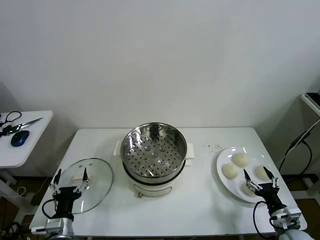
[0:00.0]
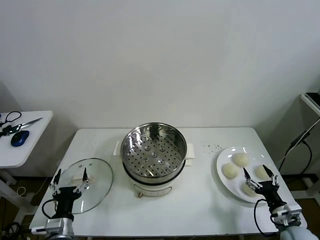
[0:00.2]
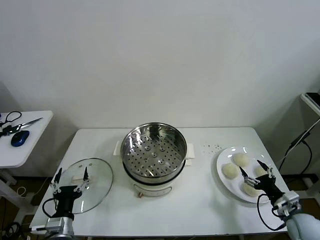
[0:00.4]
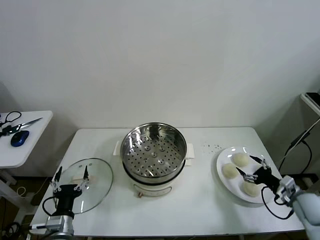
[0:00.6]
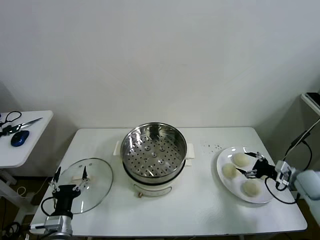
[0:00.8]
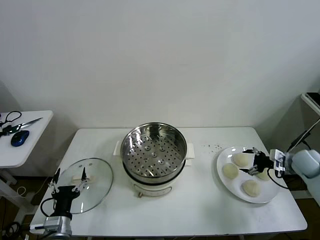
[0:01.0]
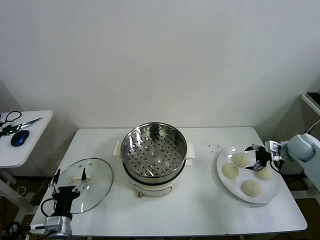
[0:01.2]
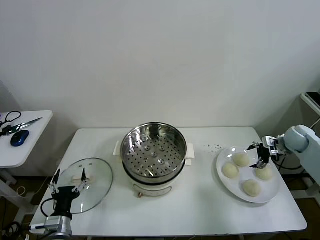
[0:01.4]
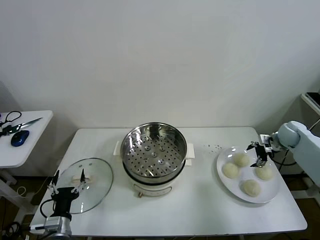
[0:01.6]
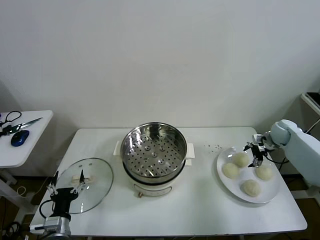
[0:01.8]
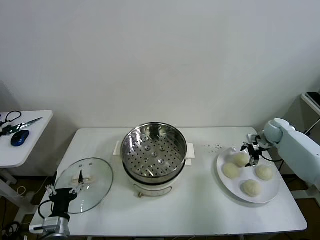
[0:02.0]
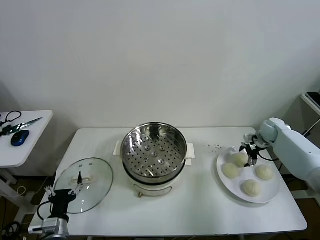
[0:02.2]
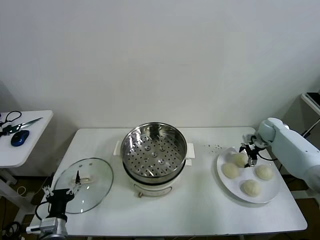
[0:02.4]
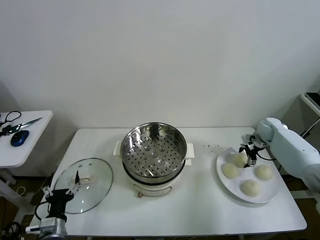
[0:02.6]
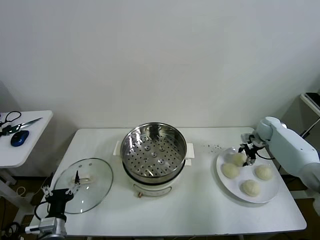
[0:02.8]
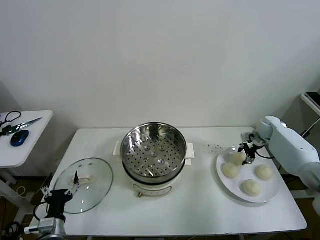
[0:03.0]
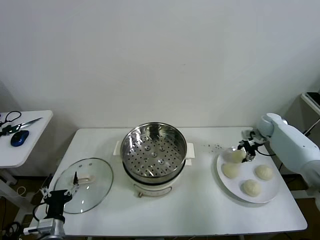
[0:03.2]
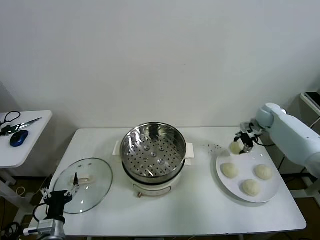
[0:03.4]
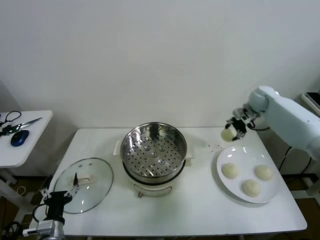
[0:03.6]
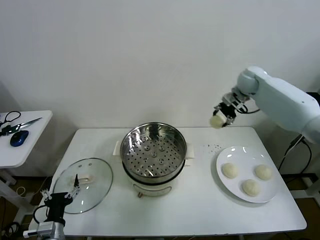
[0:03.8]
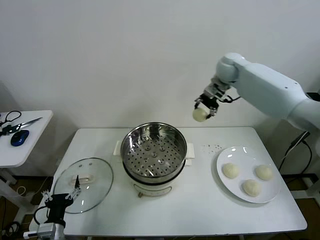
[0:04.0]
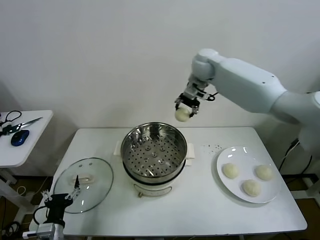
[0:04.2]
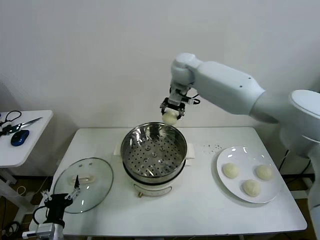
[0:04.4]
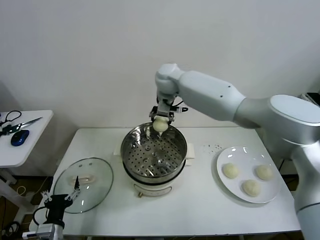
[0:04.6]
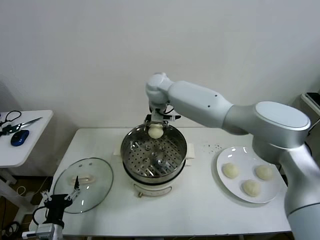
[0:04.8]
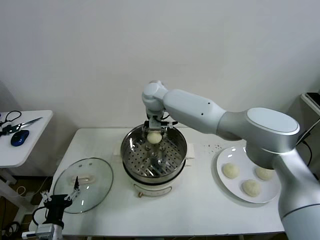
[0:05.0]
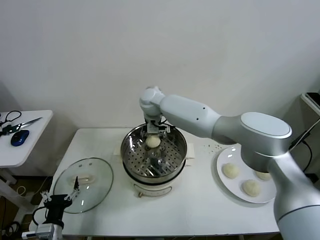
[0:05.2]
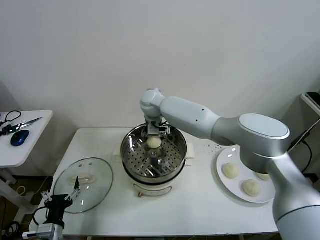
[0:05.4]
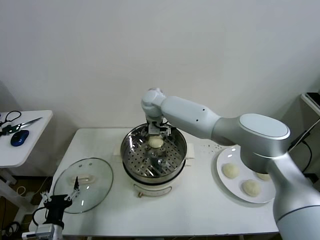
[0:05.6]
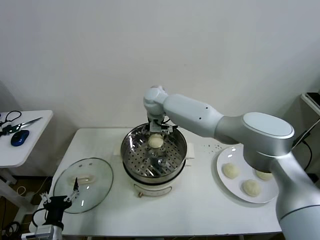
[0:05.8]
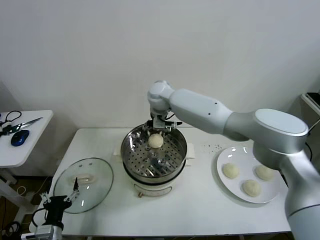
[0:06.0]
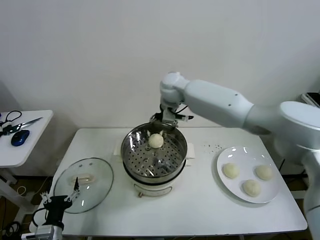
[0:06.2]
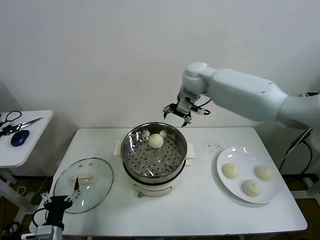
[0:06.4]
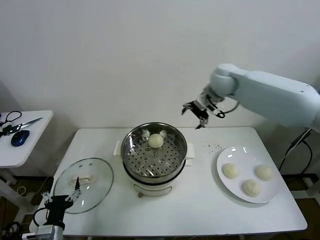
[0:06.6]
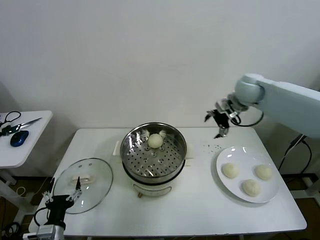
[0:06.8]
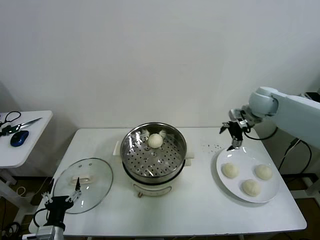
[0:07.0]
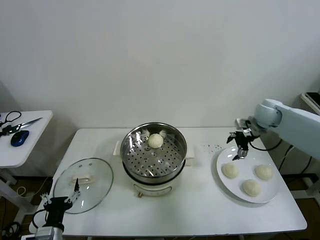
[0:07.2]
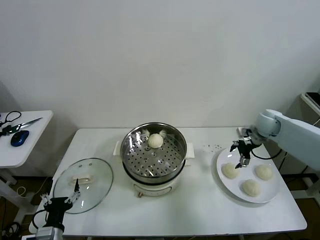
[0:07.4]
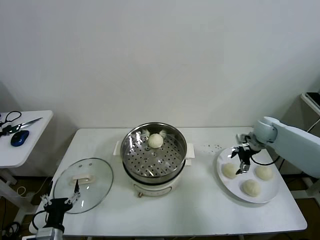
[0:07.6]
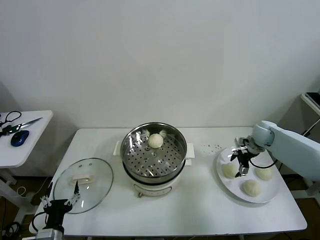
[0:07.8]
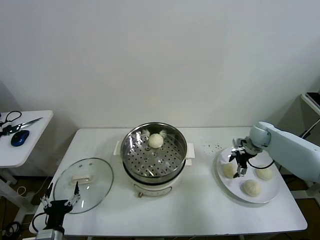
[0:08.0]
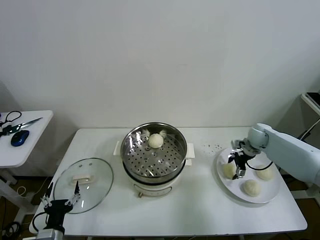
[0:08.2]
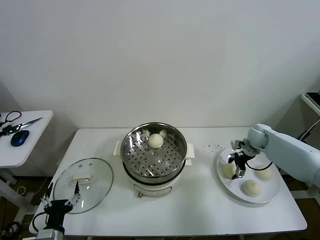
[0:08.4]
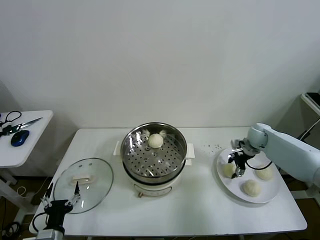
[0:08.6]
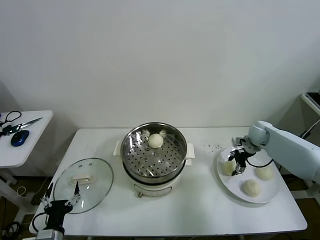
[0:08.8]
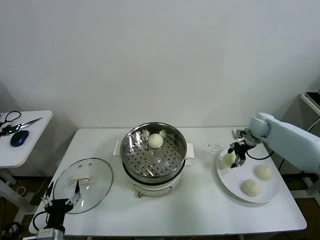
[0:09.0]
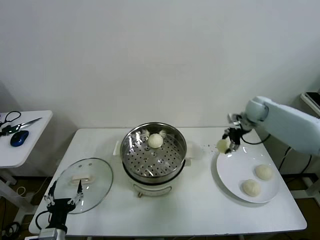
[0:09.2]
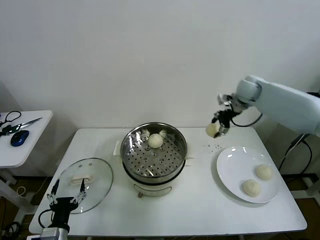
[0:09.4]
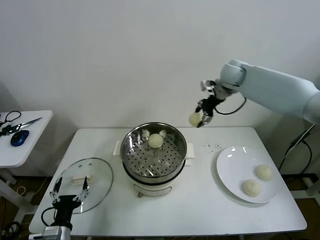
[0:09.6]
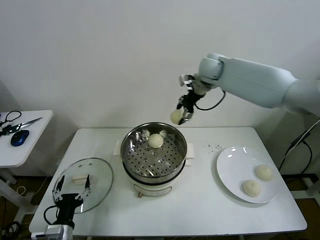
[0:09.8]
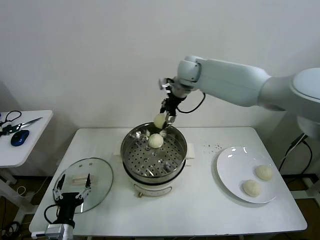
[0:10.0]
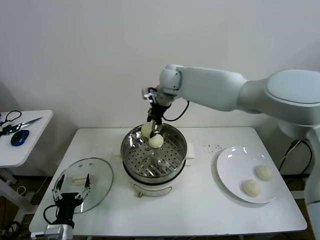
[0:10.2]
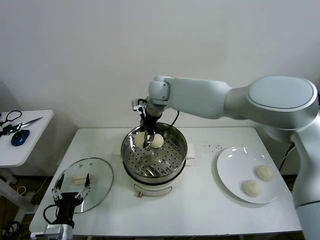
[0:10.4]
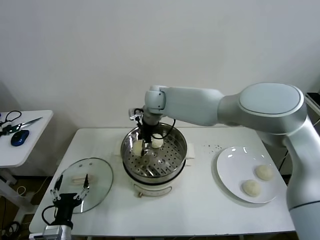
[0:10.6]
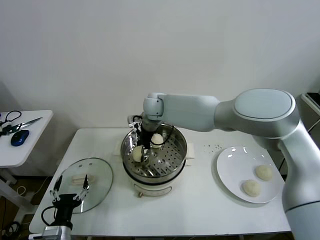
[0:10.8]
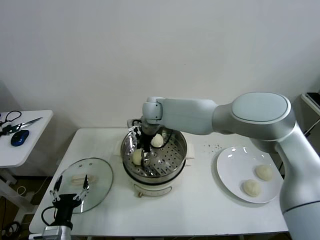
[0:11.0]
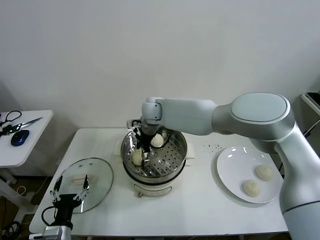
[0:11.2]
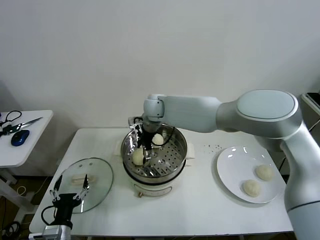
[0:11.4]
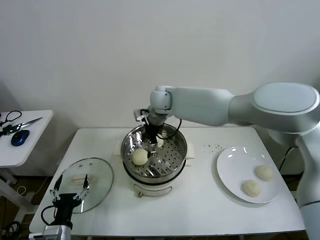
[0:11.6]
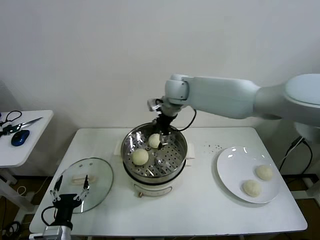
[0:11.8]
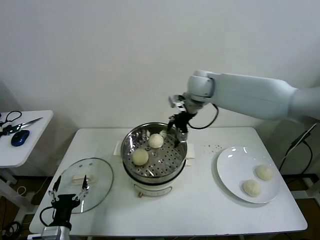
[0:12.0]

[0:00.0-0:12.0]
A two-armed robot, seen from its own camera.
Task of the whole recording: take steamed baozi put them in steamer then cover it.
Step, 0.0 to 2.6 s: Grasp the baozi in the plate with right gripper.
Step, 2.8 to 5.6 s: Place the baozi on the steamer with right gripper.
Step, 6.0 to 8.4 s: Grasp the baozi in the plate with right gripper.
Step, 8.8 to 11.4 s: Place the baozi on the steamer with right gripper.
1.6 to 3.0 s: The right gripper moves forward, some 5 cm, and closes its fingers.
3.0 to 4.4 s: The right gripper moves to the left and upward, some 50 cm.
4.4 to 6.0 s: The right gripper is displaced downward by about 5 cm, and opens its fingers.
6.0 to 7.6 s: The right gripper is displaced to the right and downward by about 40 cm.
7.6 to 9.0 s: The right gripper moves some 5 cm, and closes.
9.0 to 10.4 s: The right gripper is displaced to the left by about 40 cm.
10.4 to 12.0 s: The right gripper is displaced to the right by roughly 15 cm, and opens its fingers.

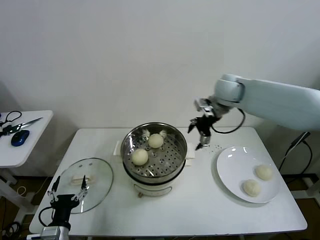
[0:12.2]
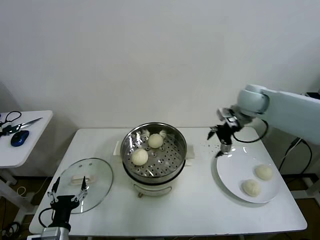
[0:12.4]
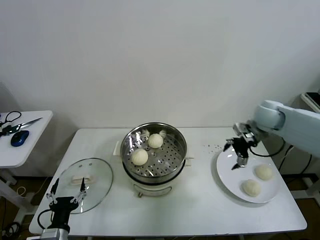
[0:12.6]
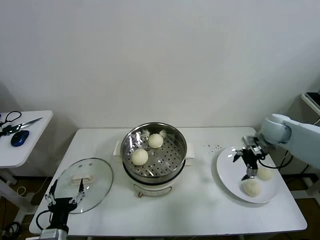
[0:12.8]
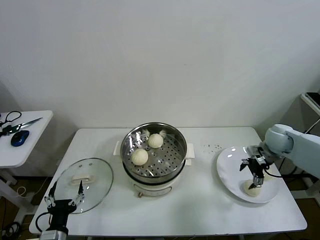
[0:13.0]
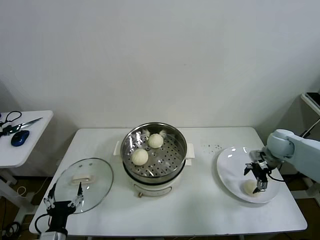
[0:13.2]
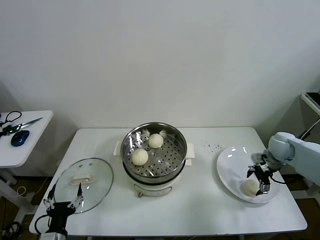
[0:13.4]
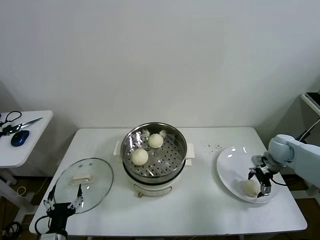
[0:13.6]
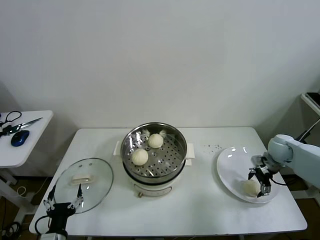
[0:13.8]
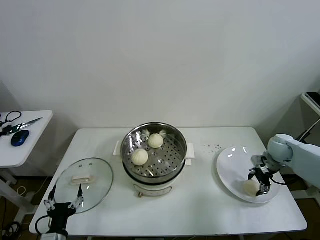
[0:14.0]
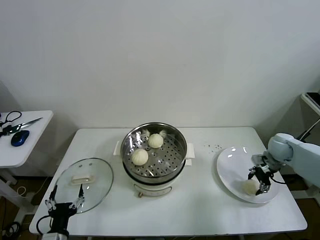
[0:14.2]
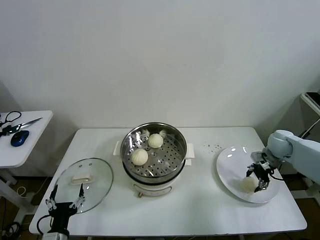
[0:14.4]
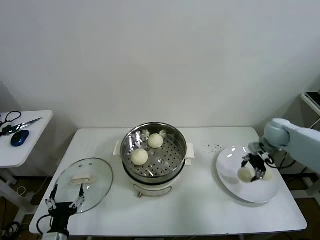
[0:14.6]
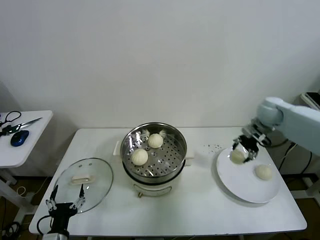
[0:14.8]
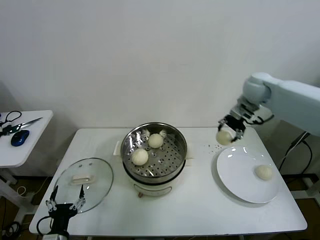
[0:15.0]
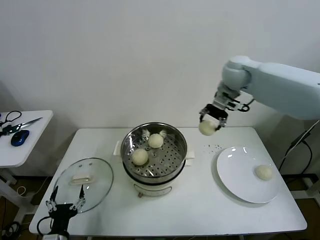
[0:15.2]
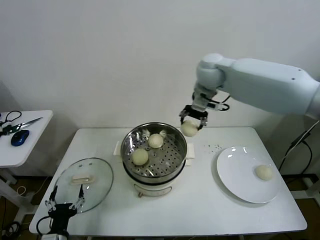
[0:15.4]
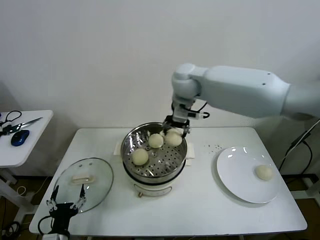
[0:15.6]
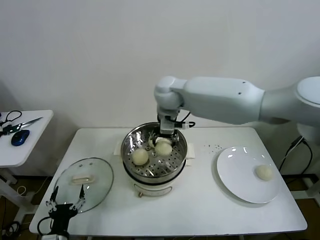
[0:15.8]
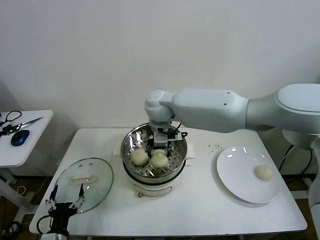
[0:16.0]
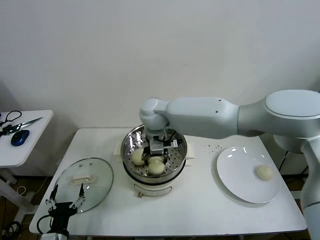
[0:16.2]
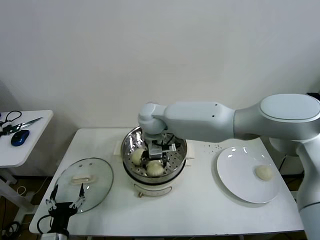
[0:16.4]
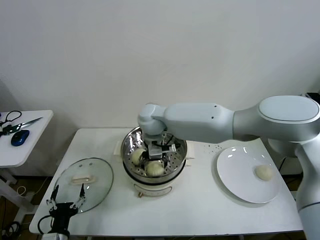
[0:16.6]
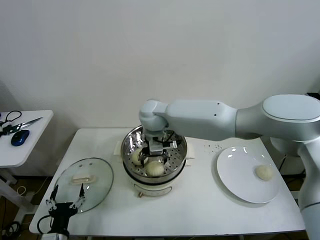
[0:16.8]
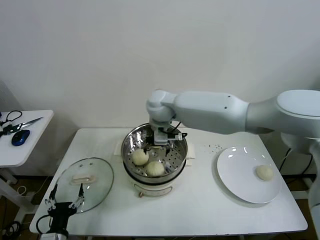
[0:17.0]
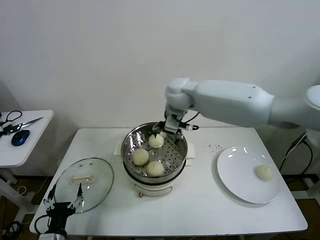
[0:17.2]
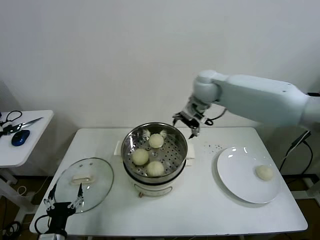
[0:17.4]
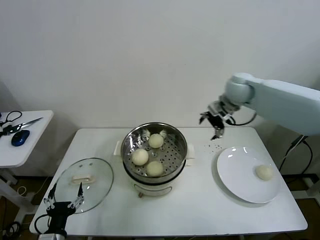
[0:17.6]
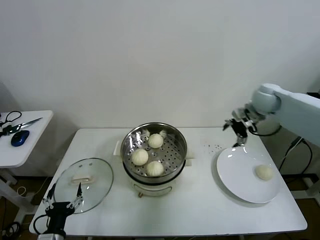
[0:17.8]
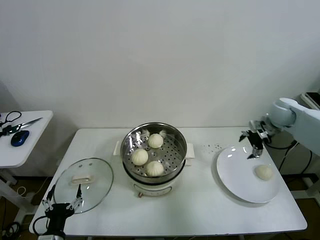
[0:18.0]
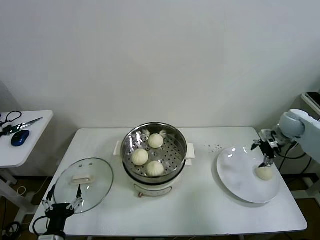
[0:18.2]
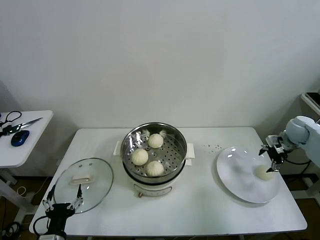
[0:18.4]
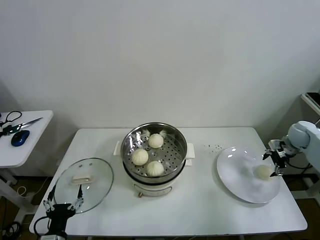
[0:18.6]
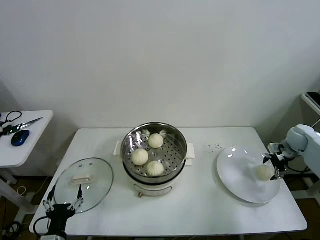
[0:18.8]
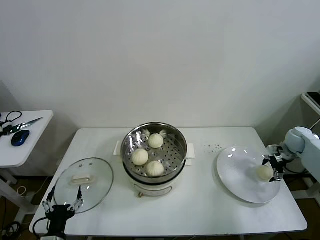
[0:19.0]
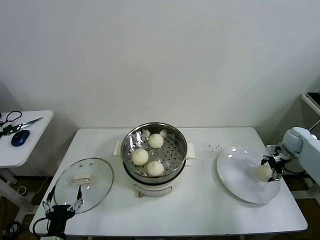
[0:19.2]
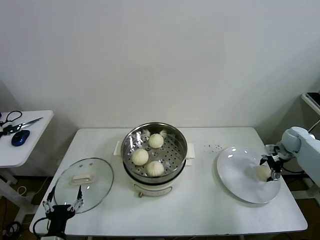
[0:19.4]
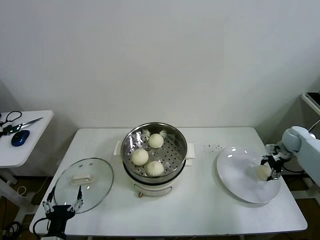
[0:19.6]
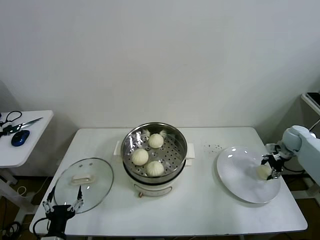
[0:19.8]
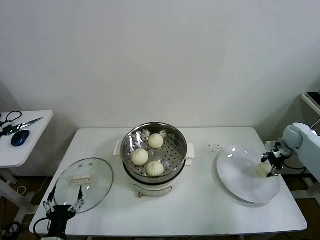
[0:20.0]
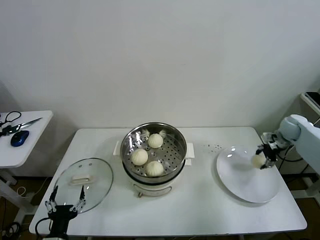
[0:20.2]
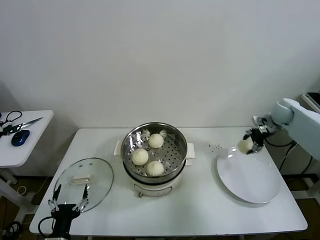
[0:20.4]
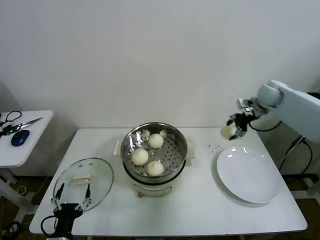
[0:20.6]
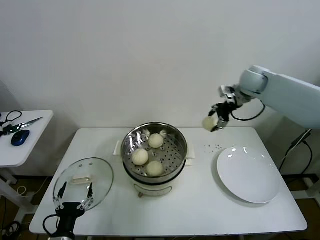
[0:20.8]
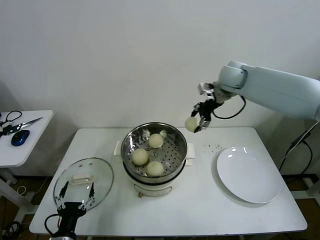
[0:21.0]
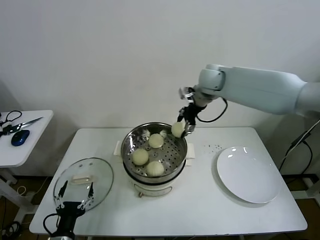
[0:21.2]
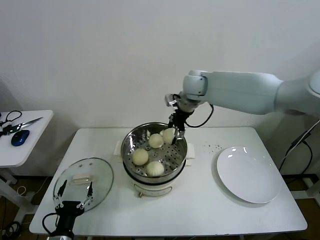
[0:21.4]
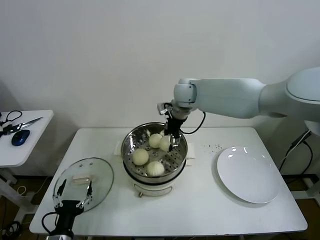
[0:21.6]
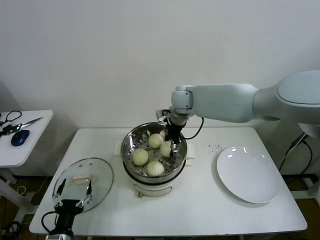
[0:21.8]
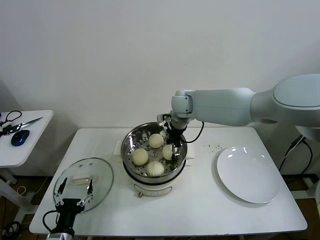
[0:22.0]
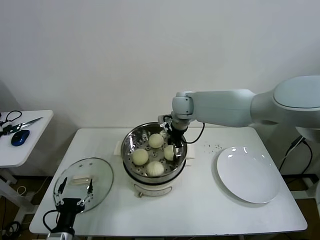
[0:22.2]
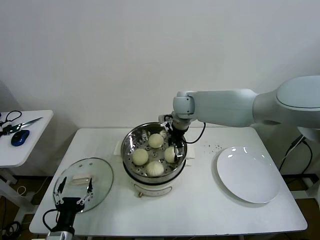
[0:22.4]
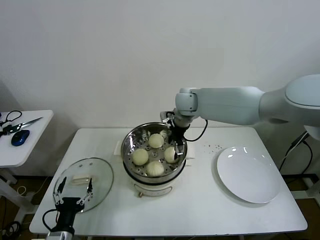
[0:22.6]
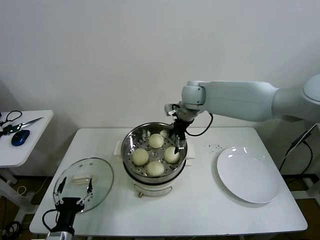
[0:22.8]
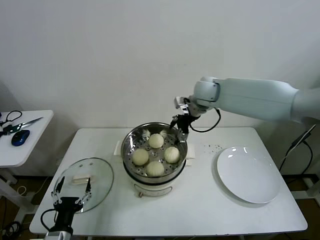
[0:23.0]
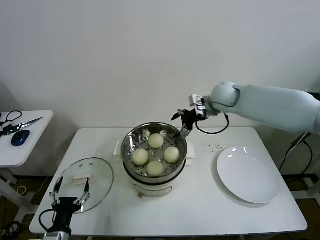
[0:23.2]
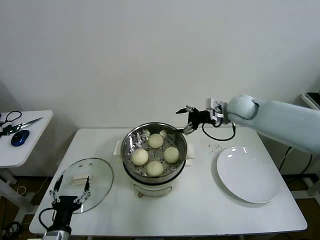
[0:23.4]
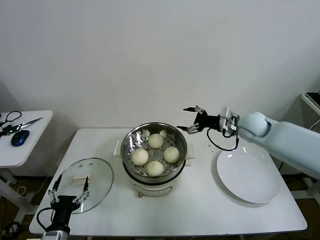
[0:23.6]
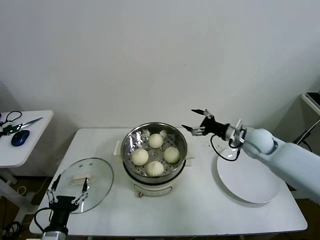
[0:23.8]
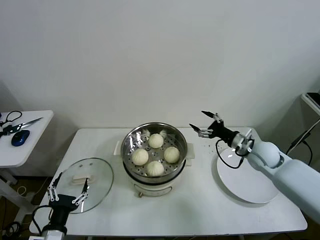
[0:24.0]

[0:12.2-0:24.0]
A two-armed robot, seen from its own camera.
Task of the whole recording: take steamed baozi put them in steamer then cover it.
Step, 12.2 to 14.0 s: Grasp the baozi in the plate with right gripper.
Step, 14.2 to 16.6 s: Place the baozi on the steamer with right gripper.
Step, 16.8 to 19.6 s: Grasp the baozi in the plate with right gripper.
Step, 19.8 to 22.4 s: Place the baozi on the steamer with right gripper.
12.2 to 13.6 s: The right gripper heads downward and to the right, covering approximately 30 cm.
13.6 to 15.2 s: The right gripper is displaced upward and to the left by some 35 cm, and closes.
15.2 to 16.6 s: The right gripper shifts roughly 25 cm to the left and downward, and opens its fingers.
16.6 to 18.2 s: The right gripper shifts roughly 50 cm to the right.
18.2 to 19.6 s: The right gripper travels downward by roughly 10 cm, and closes its fingers.
19.6 to 21.0 s: The right gripper shifts approximately 40 cm to the left and upward.
21.0 to 22.6 s: The right gripper moves to the left and downward, approximately 15 cm, and opens.
22.6 to 24.0 s: The right gripper goes roughly 30 cm to the right, downward and backward.
